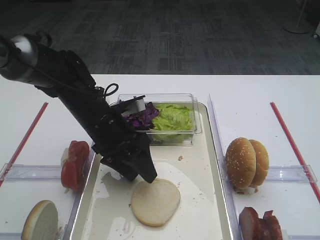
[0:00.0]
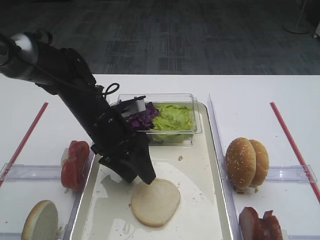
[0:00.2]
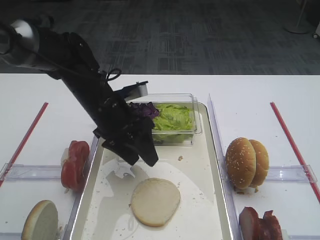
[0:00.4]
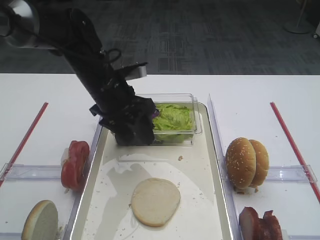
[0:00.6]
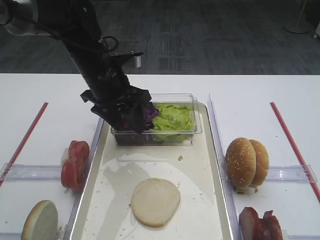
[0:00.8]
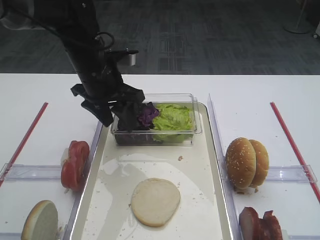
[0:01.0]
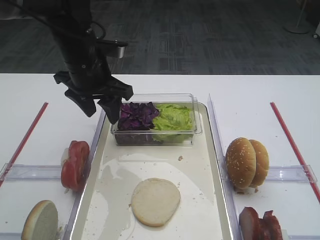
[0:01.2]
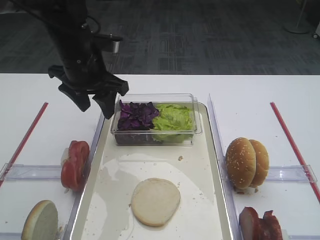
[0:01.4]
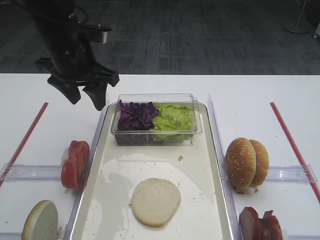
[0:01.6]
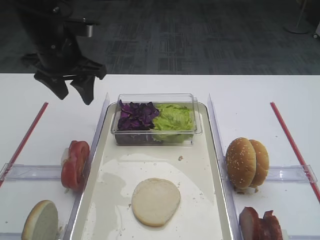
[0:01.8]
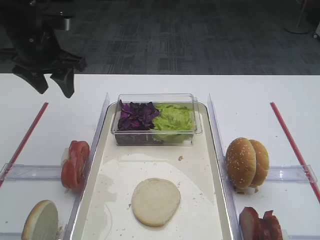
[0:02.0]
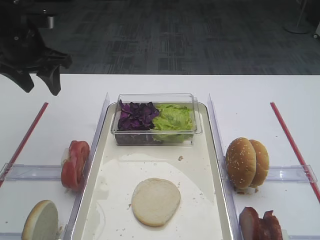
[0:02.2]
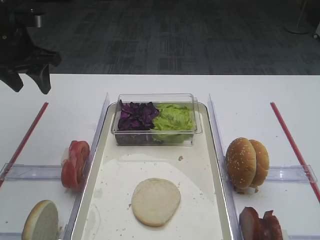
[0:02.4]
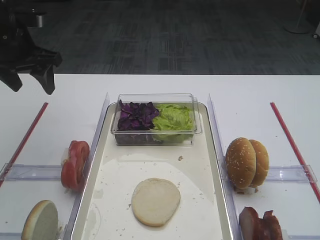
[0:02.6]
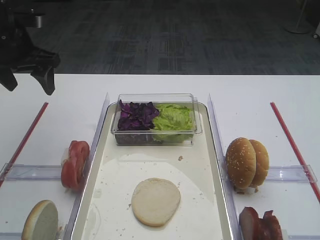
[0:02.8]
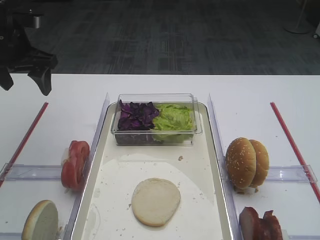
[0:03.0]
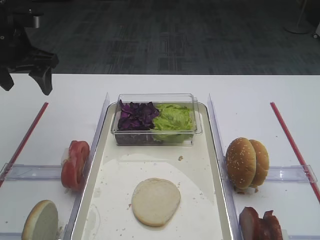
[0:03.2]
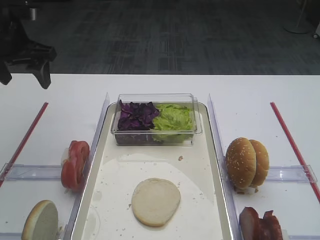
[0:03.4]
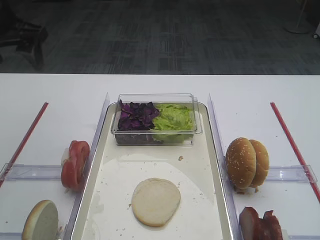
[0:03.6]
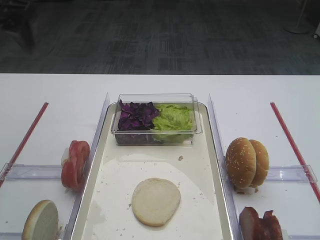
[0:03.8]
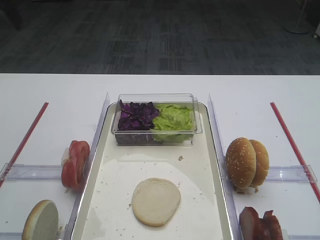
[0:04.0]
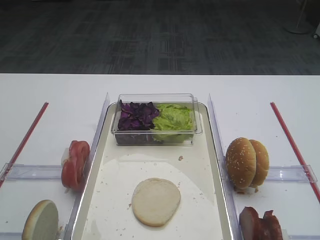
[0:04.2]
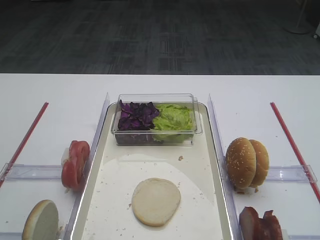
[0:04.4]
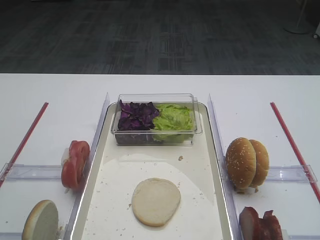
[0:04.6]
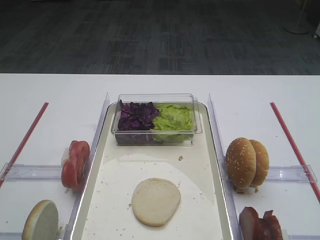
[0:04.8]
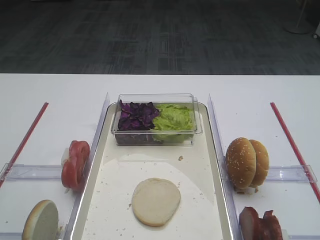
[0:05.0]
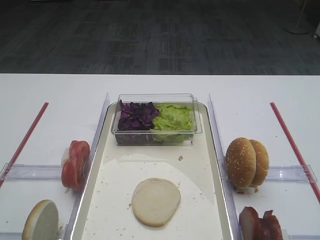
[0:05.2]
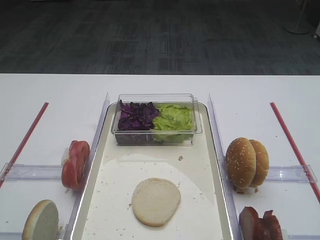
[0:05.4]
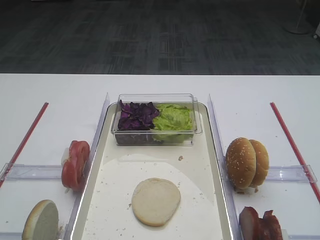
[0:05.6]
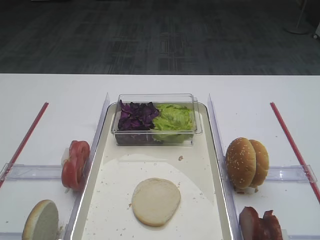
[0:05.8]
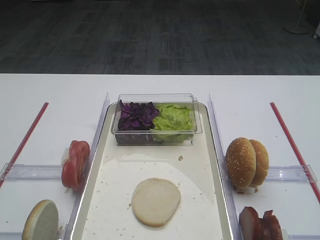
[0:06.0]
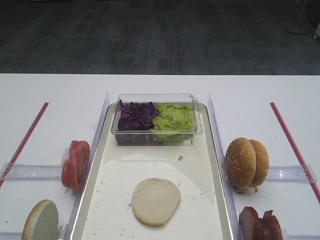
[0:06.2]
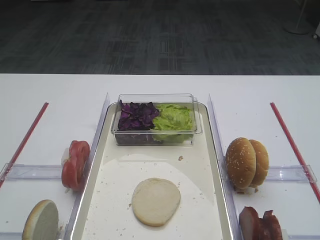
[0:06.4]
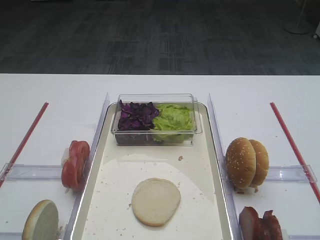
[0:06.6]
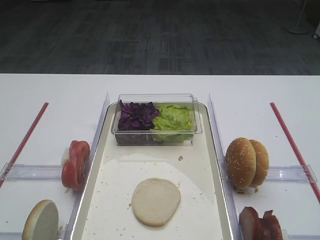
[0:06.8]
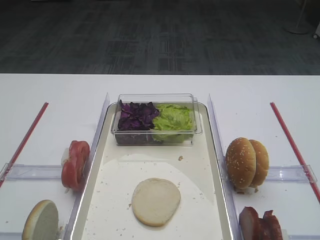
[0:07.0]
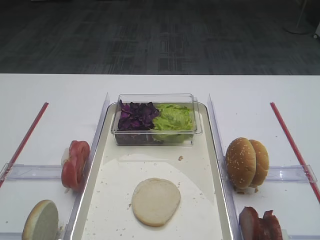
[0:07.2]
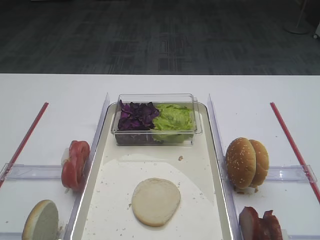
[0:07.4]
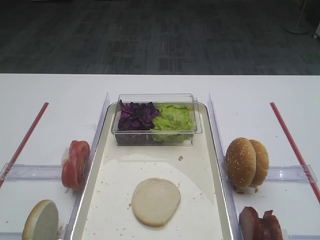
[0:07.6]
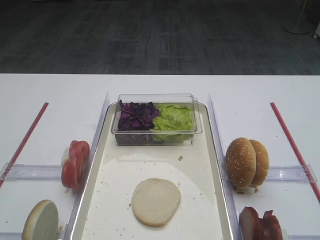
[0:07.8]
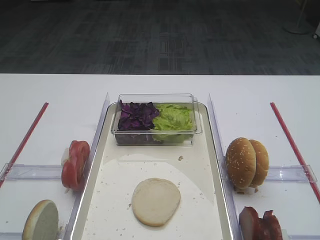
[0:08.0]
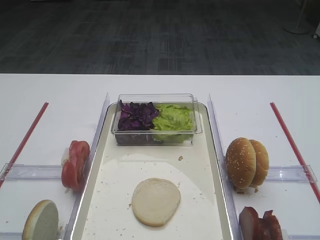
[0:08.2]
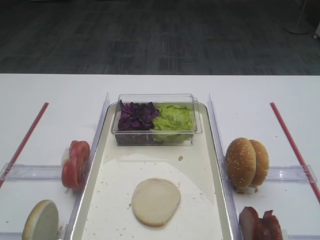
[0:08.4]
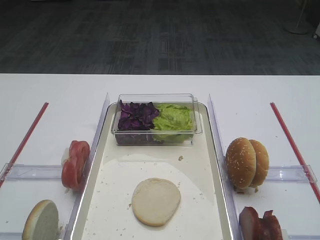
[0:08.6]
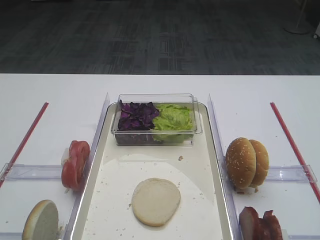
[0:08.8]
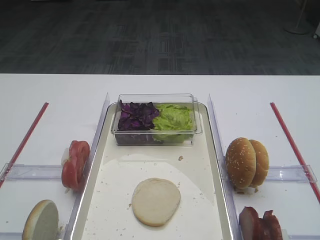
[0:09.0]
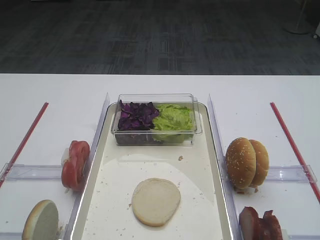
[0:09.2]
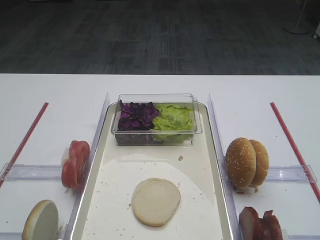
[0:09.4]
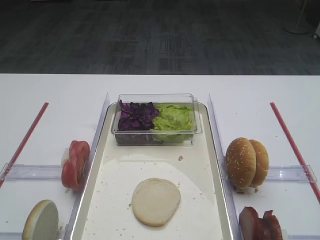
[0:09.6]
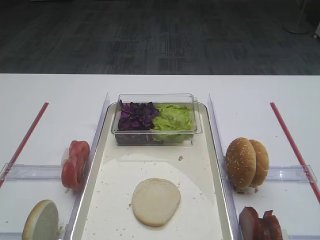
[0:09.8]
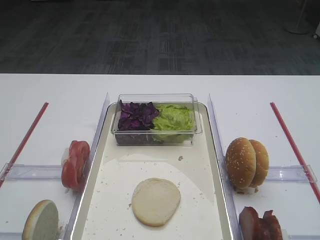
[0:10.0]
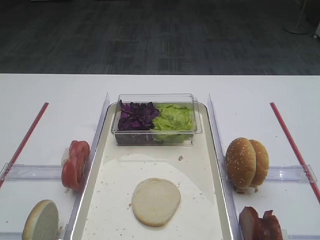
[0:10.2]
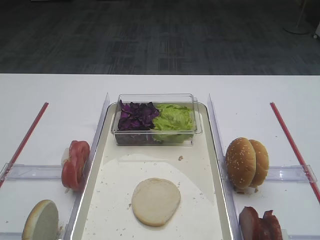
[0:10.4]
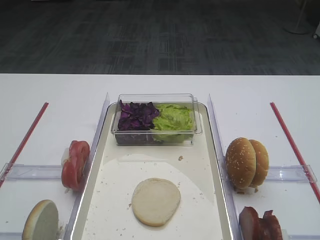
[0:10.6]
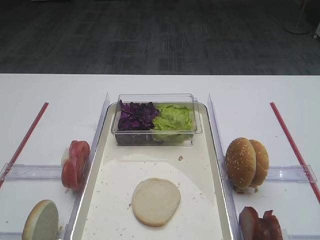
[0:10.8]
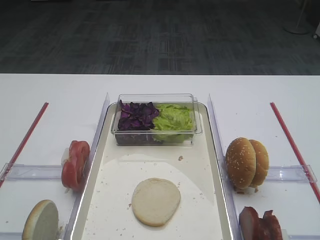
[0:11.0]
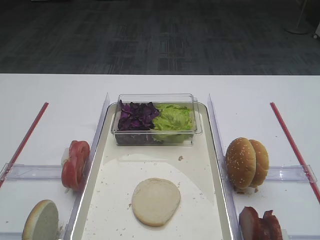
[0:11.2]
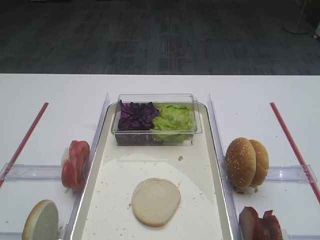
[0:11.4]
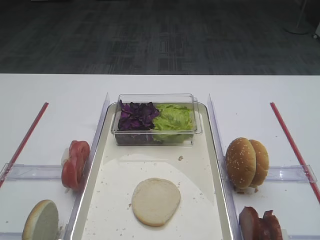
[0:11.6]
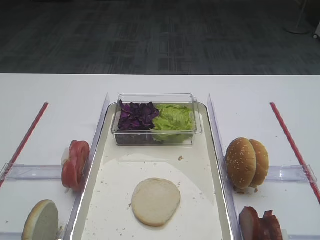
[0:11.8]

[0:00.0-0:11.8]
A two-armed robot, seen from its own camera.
0:00.0 to 0:01.4: The left gripper moves upward and forward, approximately 10 cm.
0:01.4 to 0:03.0: The left gripper moves to the left, approximately 15 cm.
0:03.0 to 0:04.4: The left gripper shifts about 25 cm upward and backward.
0:06.0 to 0:07.4: Both grippers stay put.
0:08.8 to 0:11.8: Both grippers stay put.

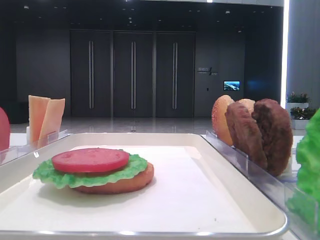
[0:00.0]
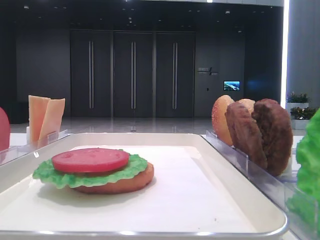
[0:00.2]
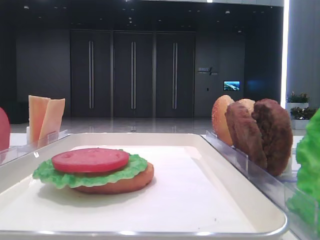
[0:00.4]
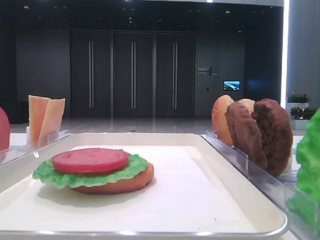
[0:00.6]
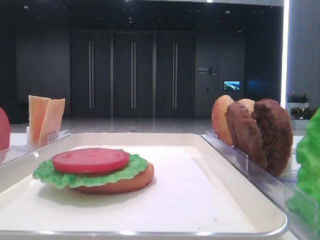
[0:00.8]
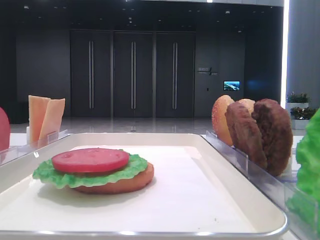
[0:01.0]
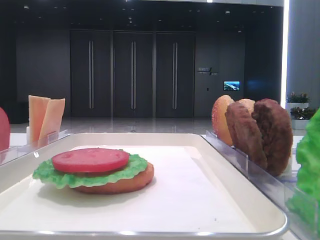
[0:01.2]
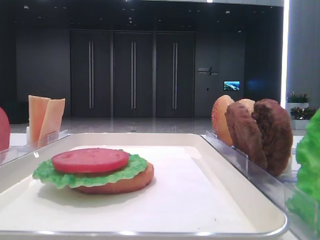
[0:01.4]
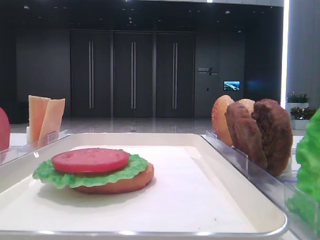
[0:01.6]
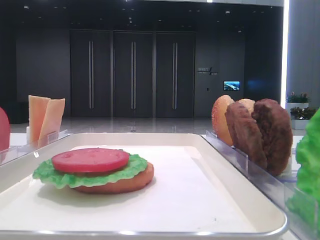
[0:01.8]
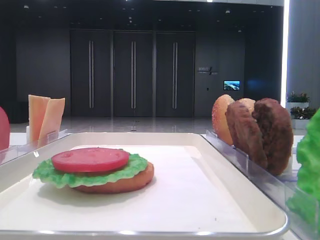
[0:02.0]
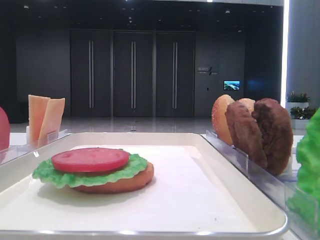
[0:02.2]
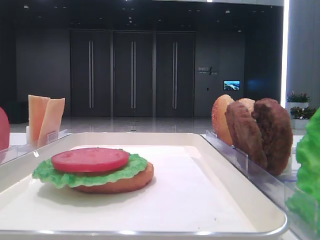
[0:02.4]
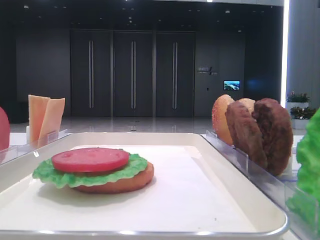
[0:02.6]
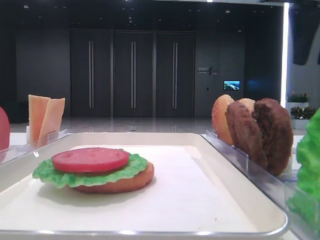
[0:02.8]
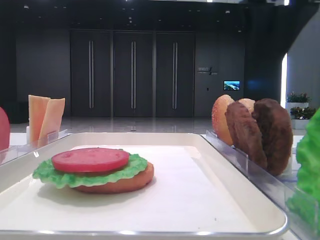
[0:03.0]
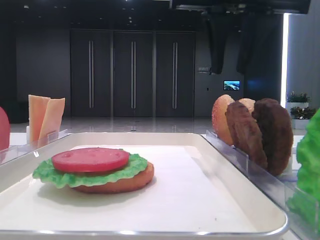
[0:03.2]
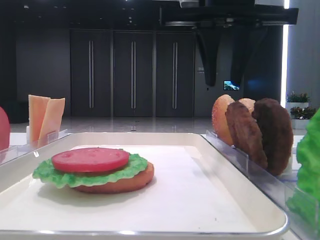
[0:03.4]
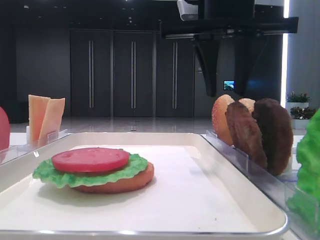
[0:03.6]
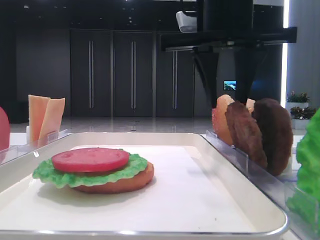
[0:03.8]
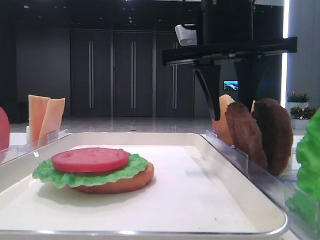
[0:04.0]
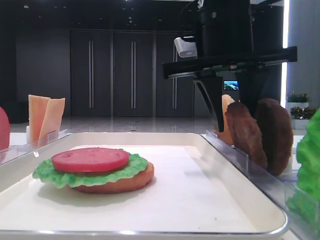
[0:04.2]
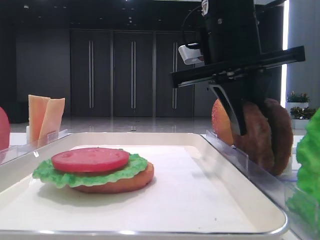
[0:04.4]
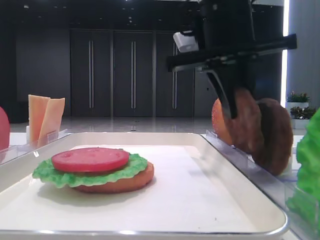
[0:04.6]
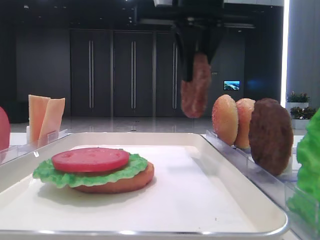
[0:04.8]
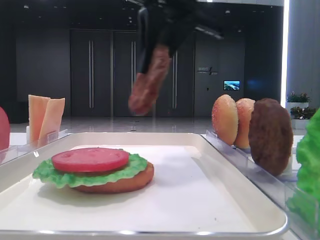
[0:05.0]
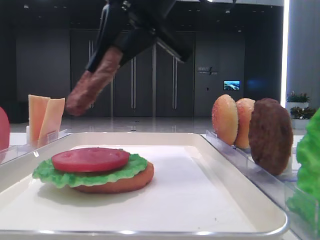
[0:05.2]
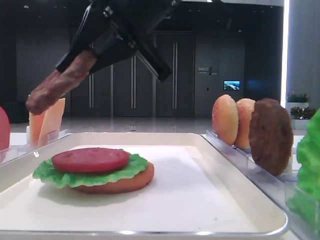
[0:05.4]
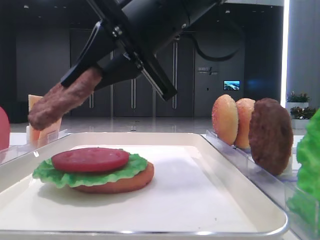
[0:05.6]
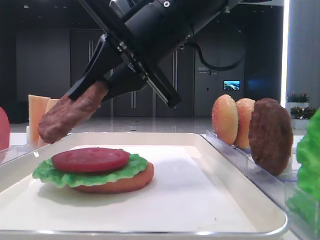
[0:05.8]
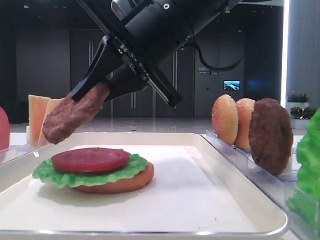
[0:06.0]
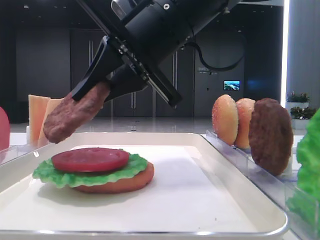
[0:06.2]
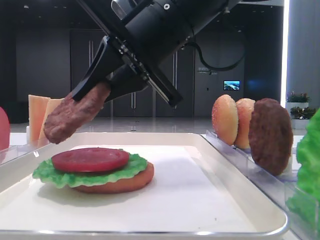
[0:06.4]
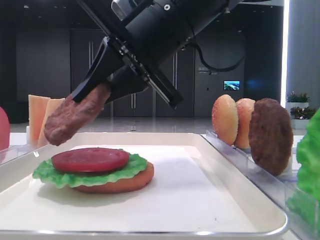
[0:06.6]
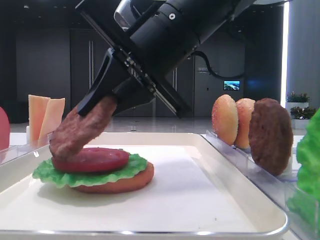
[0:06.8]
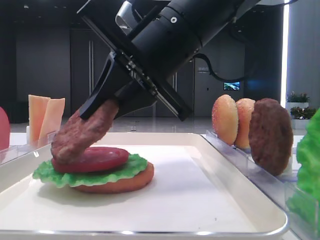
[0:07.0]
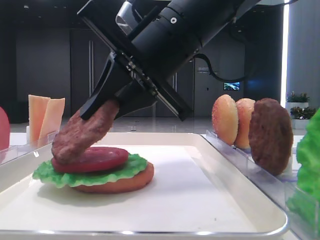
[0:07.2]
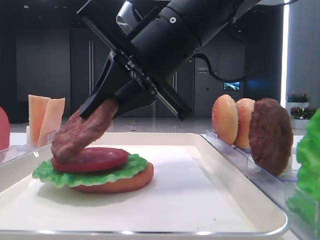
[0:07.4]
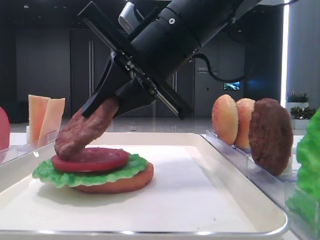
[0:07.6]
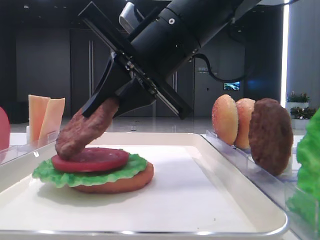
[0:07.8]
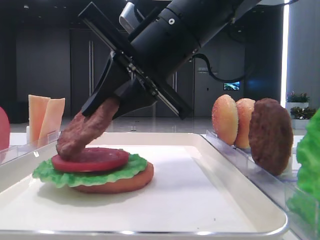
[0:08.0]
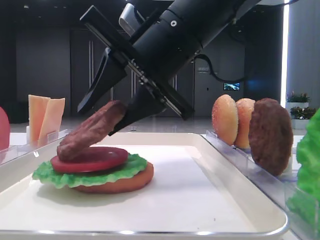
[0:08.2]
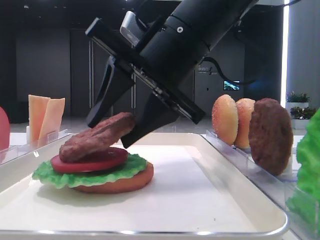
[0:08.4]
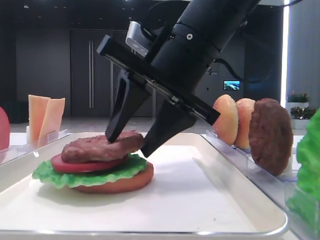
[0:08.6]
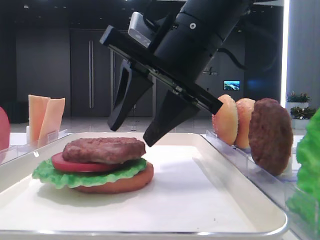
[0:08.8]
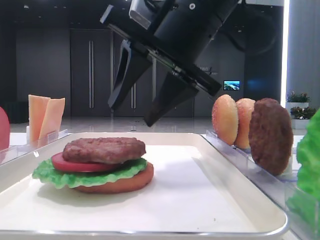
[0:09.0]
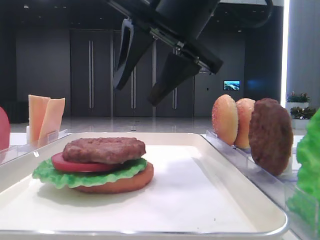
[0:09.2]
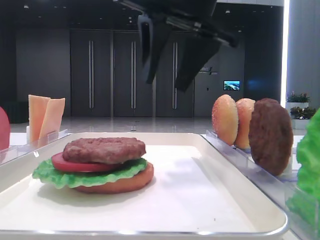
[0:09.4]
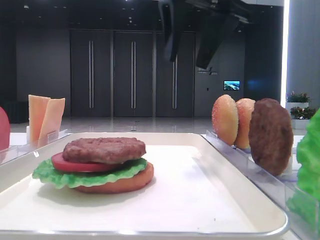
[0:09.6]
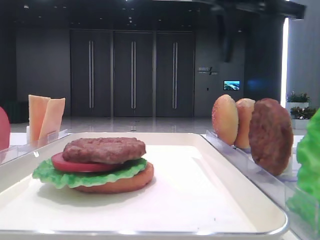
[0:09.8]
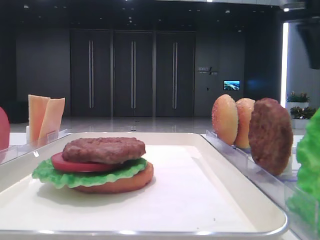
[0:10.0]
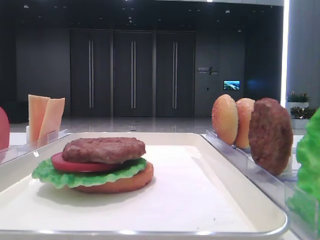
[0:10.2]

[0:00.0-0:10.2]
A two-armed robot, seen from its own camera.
Step, 0:00.0 to 0:04.2: Grab the patty with the right hand.
Step, 0:04.6 to 0:08.6: Place the patty on the tomato slice with the right hand.
0:01.4 to 0:03.0: The right gripper heads forward and to the left, covering about 35 cm.
0:03.0 to 0:04.4: The right gripper goes about 10 cm downward and to the left, and closes.
0:04.4 to 0:05.8: The right gripper shifts some 5 cm to the left.
0:05.8 to 0:07.2: The grippers stay close to where they were, moving slightly.
0:07.2 to 0:08.8: The right gripper opens its fingers.
0:08.8 to 0:10.2: The right gripper shifts about 30 cm to the right and upward.
